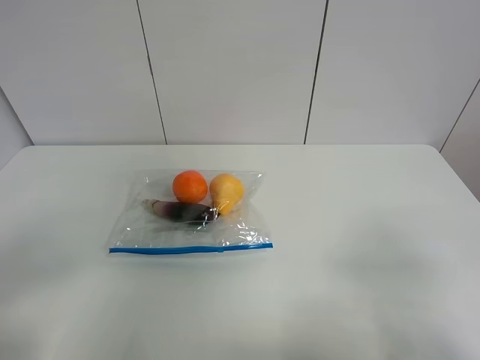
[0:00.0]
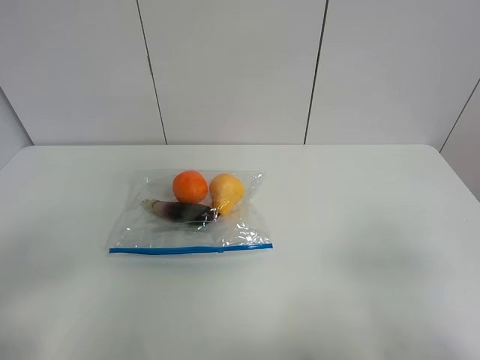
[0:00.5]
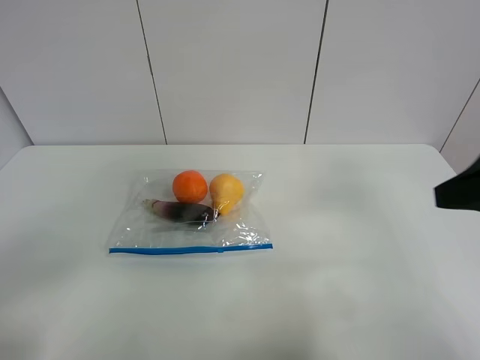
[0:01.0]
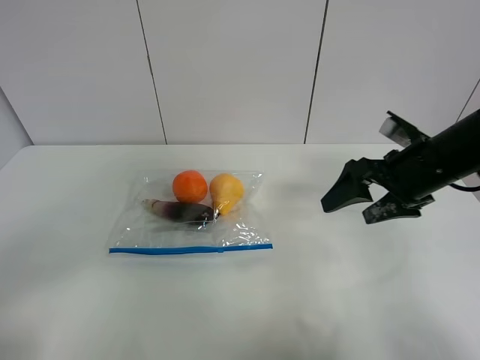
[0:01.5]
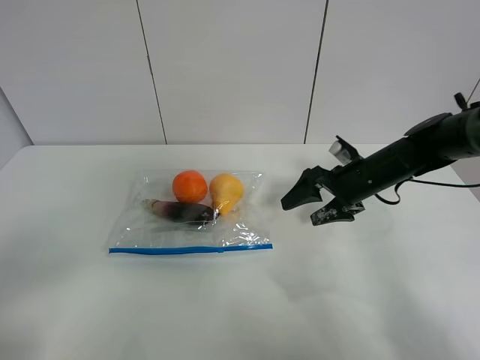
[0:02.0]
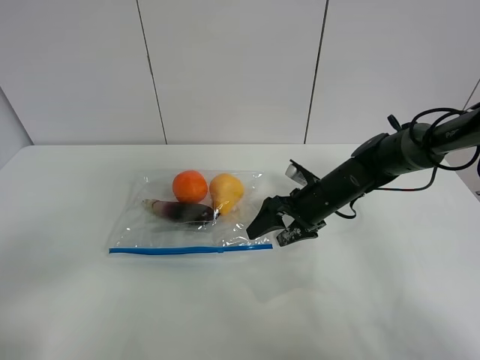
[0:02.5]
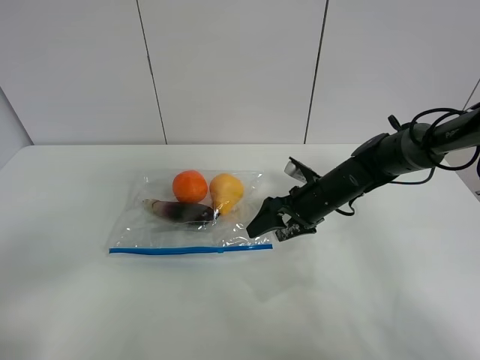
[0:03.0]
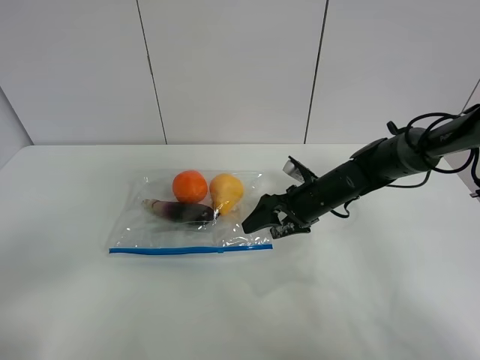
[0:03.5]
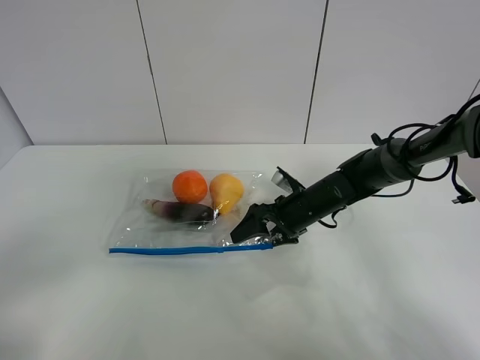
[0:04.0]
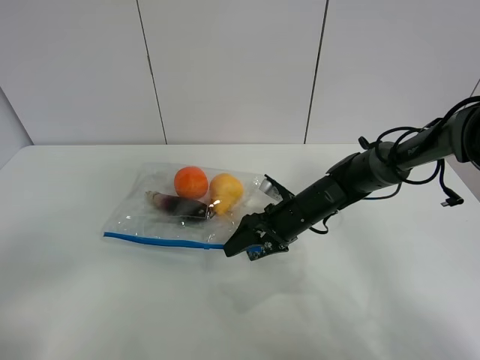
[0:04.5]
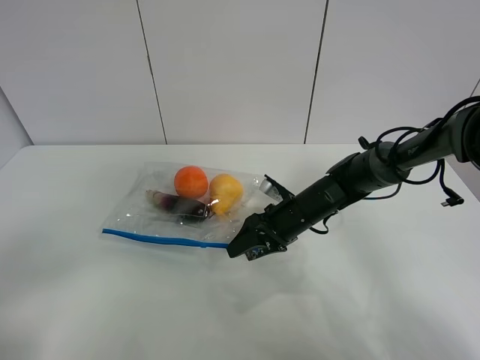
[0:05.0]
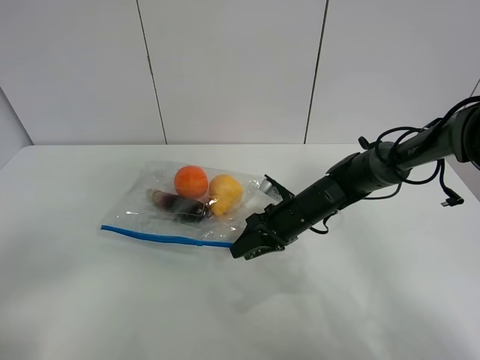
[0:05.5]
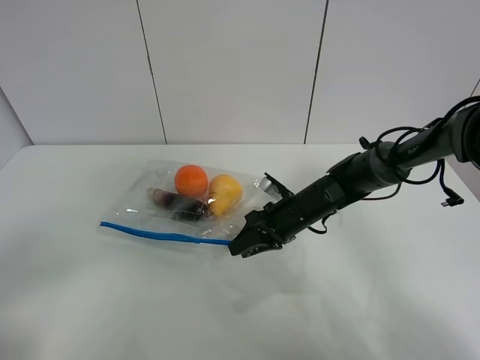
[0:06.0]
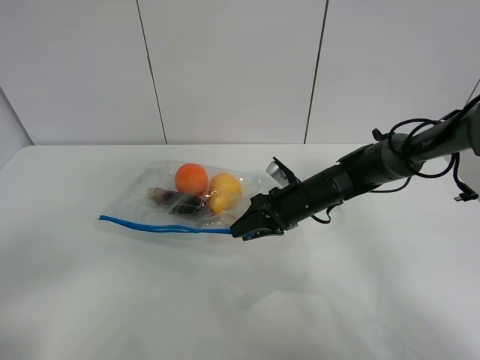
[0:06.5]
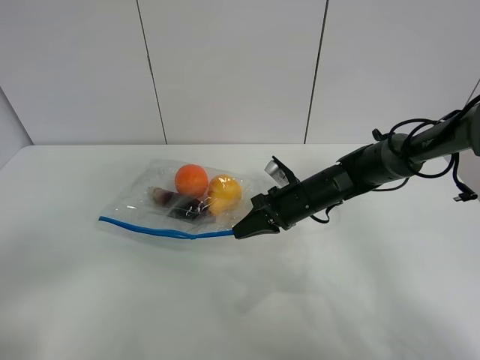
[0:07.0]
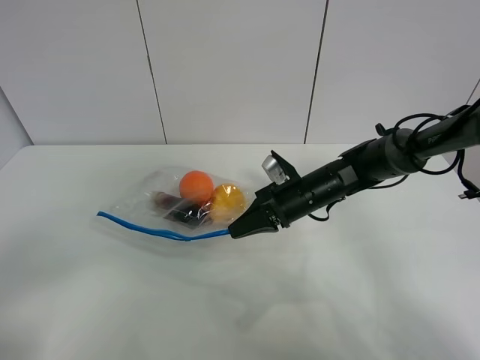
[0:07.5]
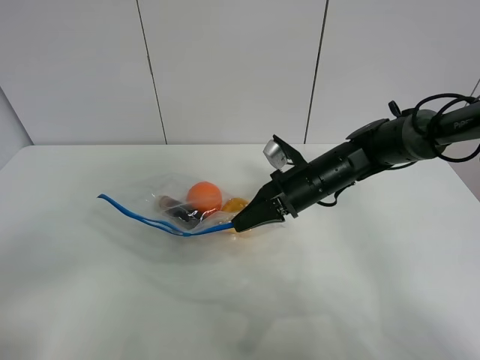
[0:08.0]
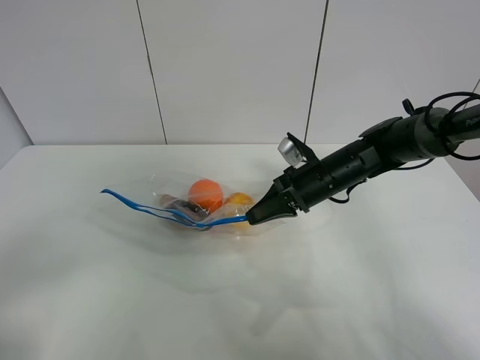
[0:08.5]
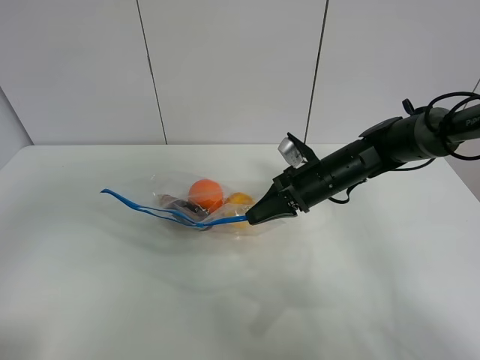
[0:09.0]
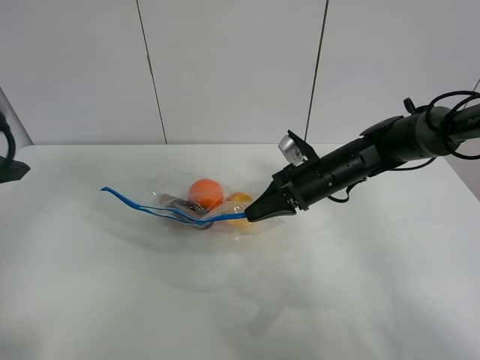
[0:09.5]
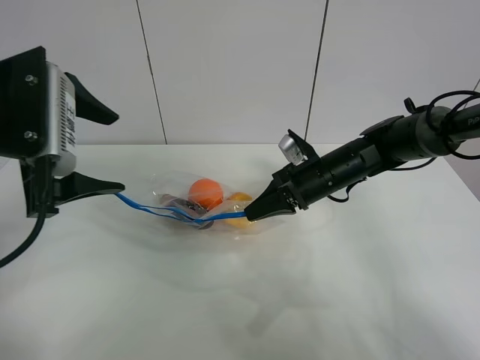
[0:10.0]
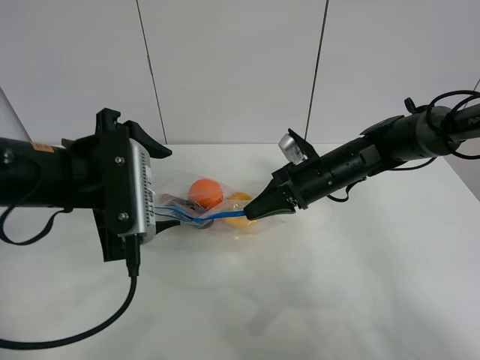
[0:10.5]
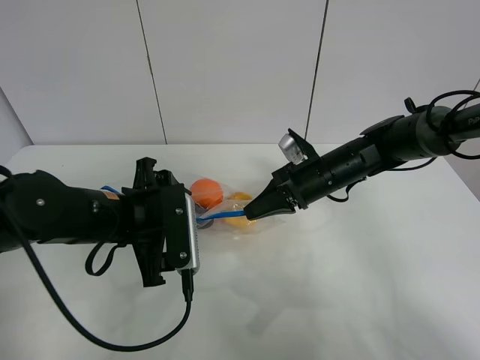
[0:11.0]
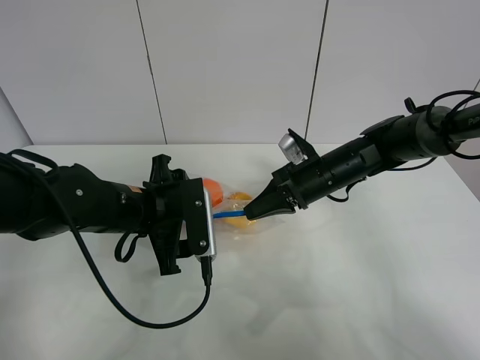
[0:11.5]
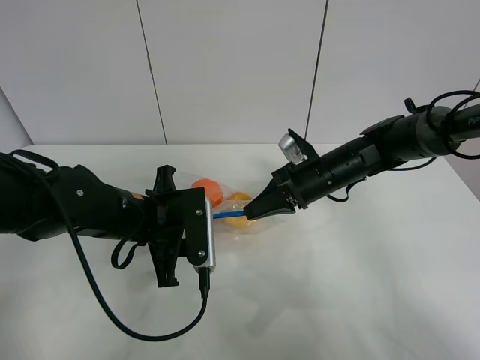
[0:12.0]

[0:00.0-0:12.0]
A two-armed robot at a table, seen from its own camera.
Step, 0:00.0 to 0:06.5: Grasp the fruit bag with right gripper.
Step, 0:07.0 to 0:08.0: Lift the fruit bag with your right gripper.
0:00.0 to 0:02.0: The right gripper shifts some 35 cm forward.
0:02.0 to 0:04.0: The right gripper moves to the left and downward, some 10 cm.
0:04.0 to 0:06.0: The right gripper closes.
0:06.0 to 0:08.0: The right gripper is displaced upward by about 5 cm, and closes.
0:08.0 to 0:10.0: The left gripper goes roughly 25 cm forward.
0:10.0 to 0:12.0: The left gripper is displaced downward and to the right by approximately 20 cm, and closes up.

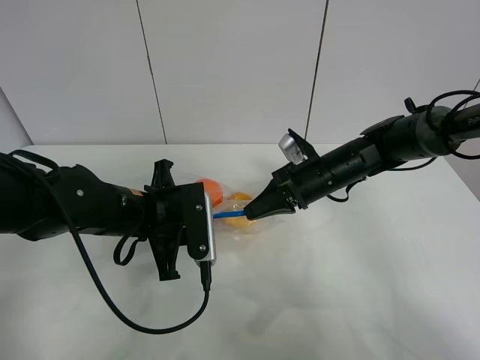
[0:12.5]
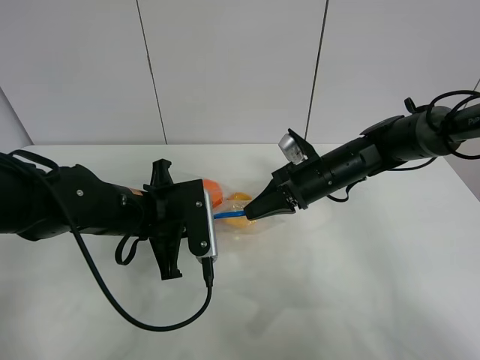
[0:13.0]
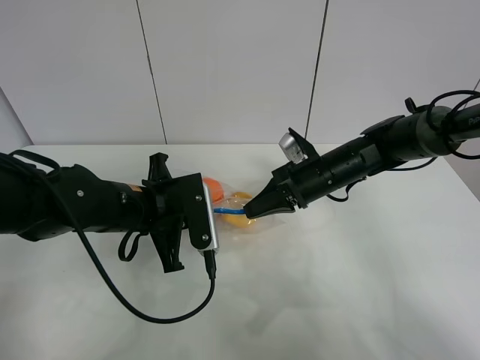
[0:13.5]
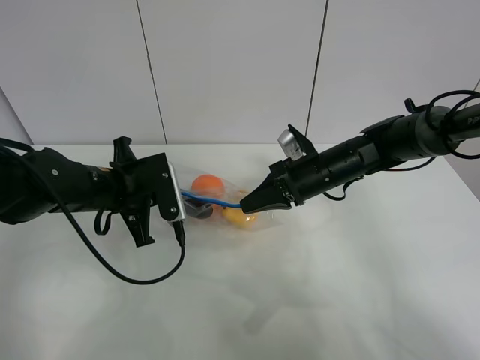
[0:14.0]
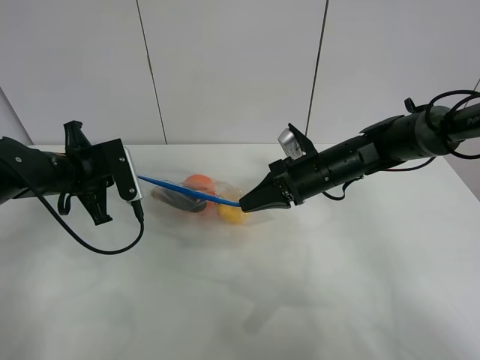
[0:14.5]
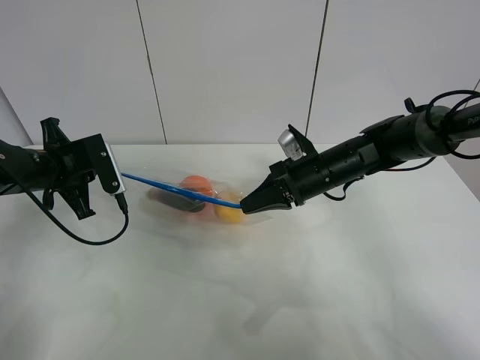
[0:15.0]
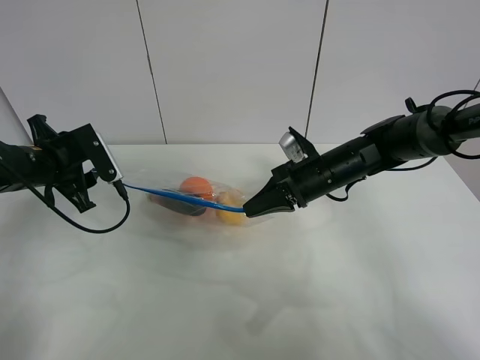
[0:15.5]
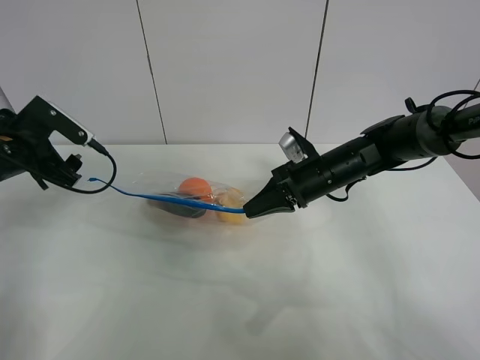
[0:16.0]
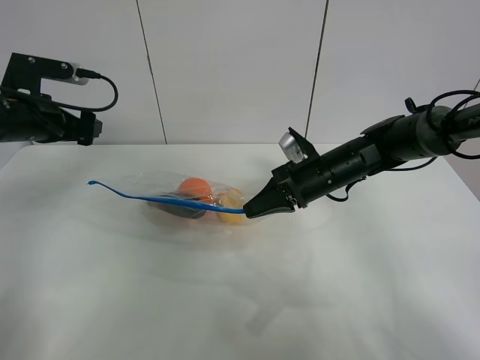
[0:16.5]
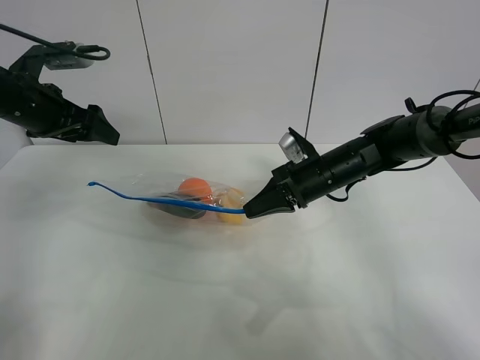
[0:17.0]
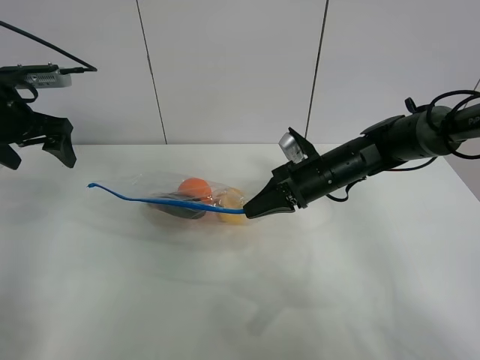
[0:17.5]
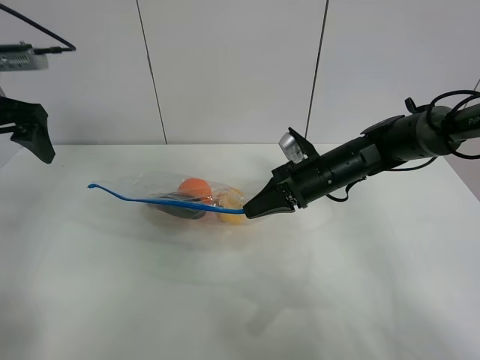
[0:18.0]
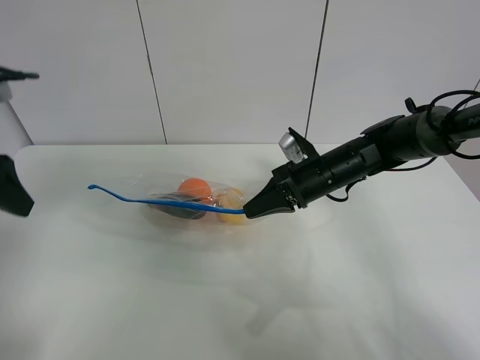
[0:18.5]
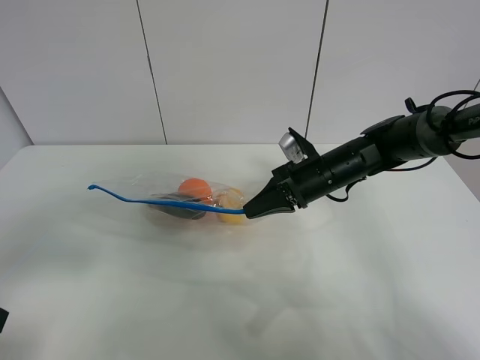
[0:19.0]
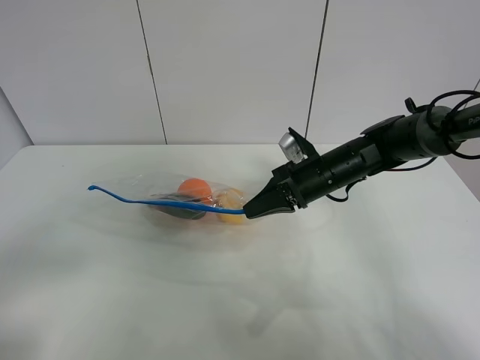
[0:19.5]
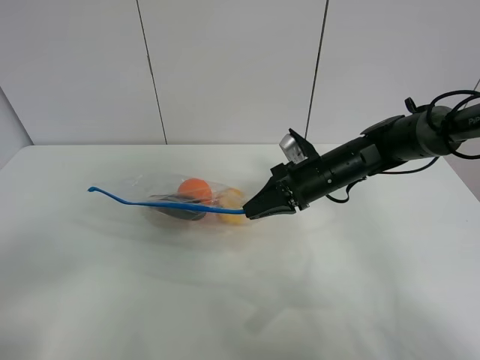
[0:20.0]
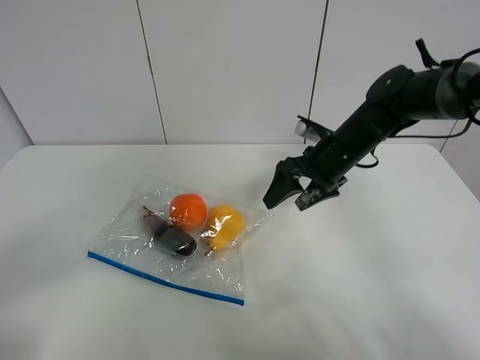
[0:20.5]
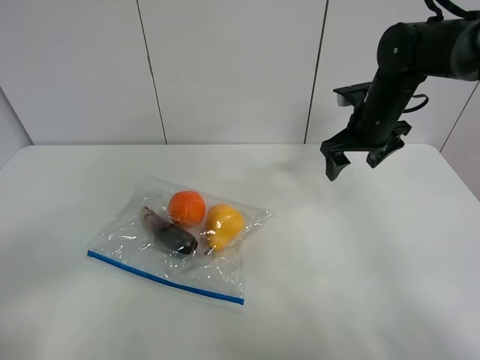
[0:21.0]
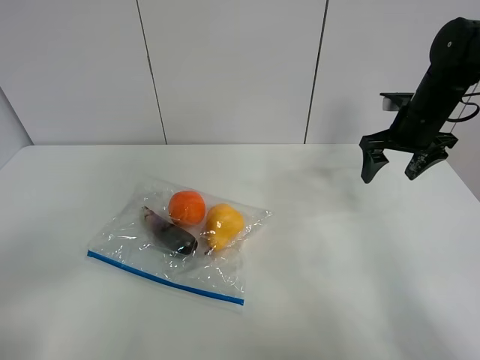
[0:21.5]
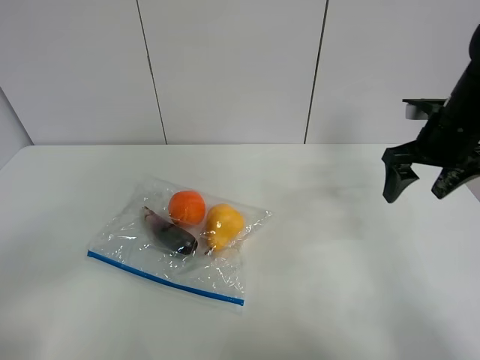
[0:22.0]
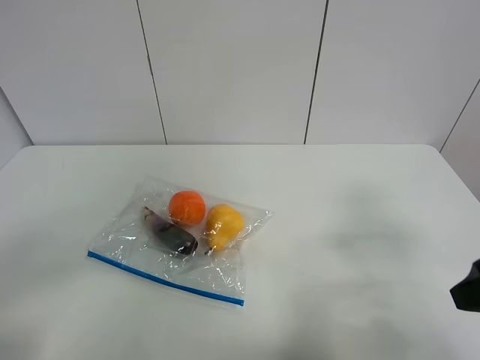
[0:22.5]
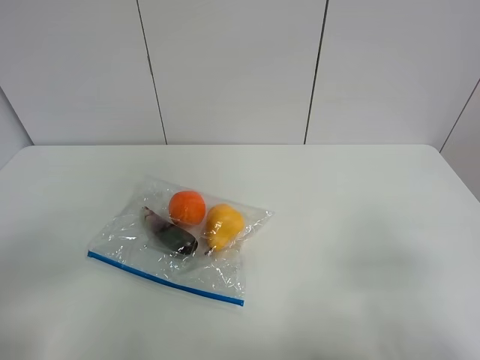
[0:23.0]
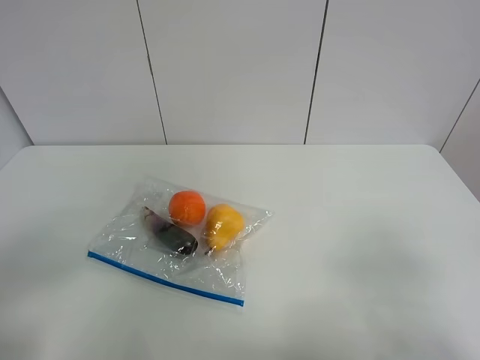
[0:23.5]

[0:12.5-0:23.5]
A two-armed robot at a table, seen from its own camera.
Step, 0:12.5 to 0:15.5: Pull the fruit bag with left gripper.
0:12.5 to 0:14.5: The left gripper shifts roughly 15 cm to the left and forward.
0:14.5 to 0:16.0: The left gripper moves to the left, some 5 cm, and opens its fingers.
0:16.0 to 0:18.0: The left gripper heads upward, covering roughly 15 cm.
0:18.0 to 0:20.0: The left gripper heads backward, covering about 30 cm.
0:20.0 to 0:21.5: The right gripper heads to the right and upward, covering some 15 cm, and opens its fingers.
0:21.5 to 0:23.5: The right gripper shifts roughly 40 cm backward.

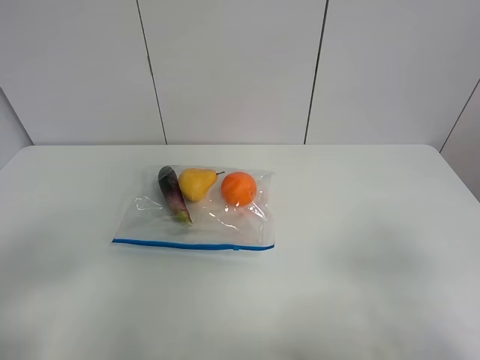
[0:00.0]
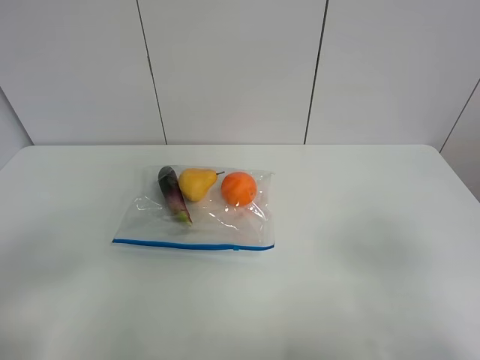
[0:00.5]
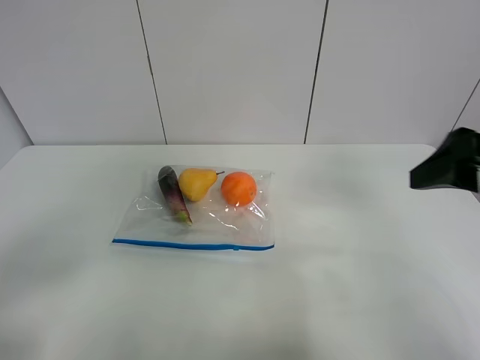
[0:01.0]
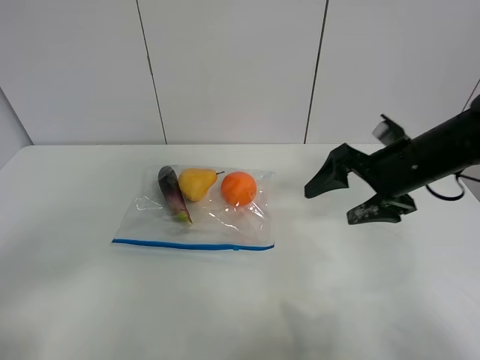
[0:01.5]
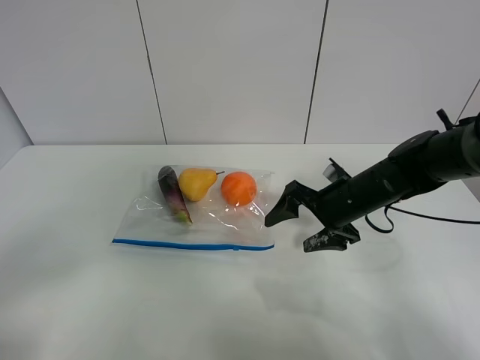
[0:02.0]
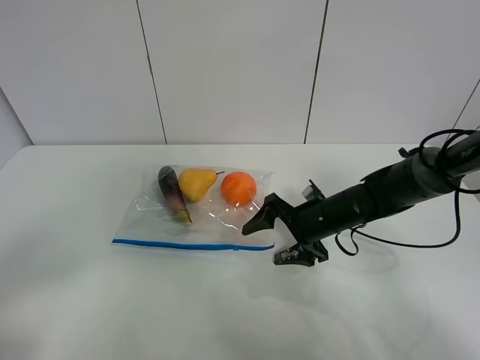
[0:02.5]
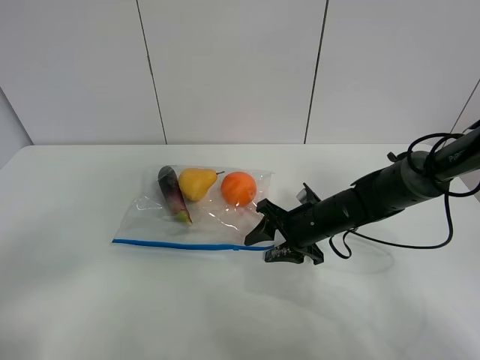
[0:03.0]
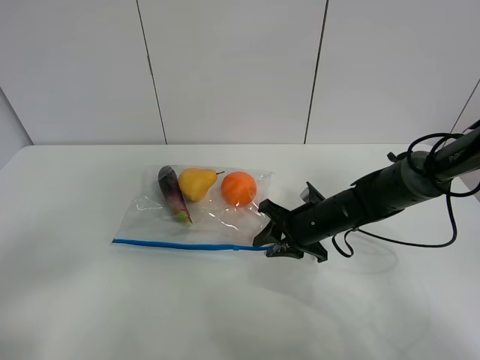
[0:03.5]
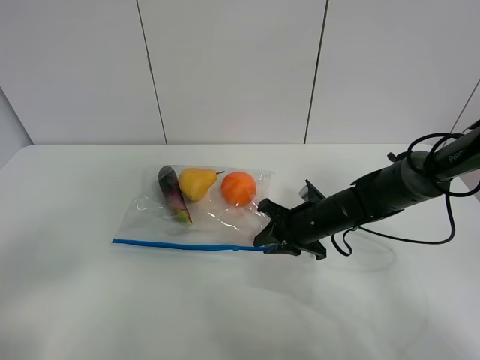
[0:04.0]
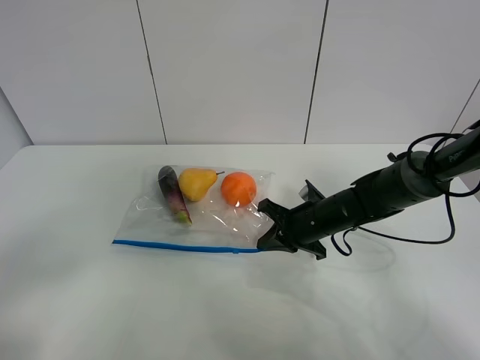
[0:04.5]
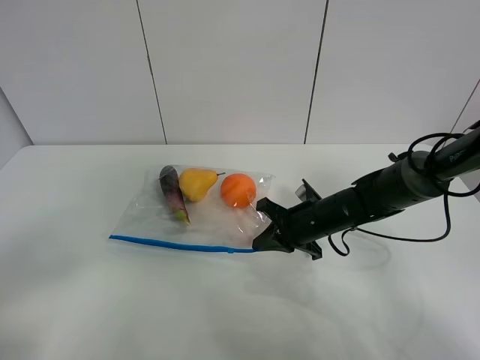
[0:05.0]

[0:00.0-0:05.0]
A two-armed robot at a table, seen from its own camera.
Step, 0:00.0 to 0:04.0: Grasp the fruit bag with right gripper.
0:00.0 to 0:02.5: The right gripper travels forward, downward and to the left by approximately 40 cm.
0:02.5 to 0:05.0: The right gripper closes its fingers.
